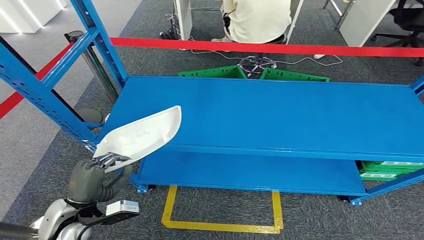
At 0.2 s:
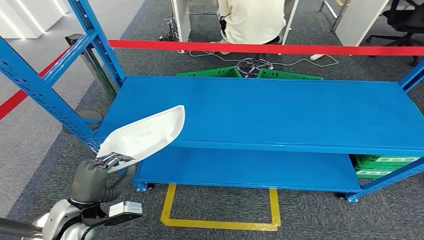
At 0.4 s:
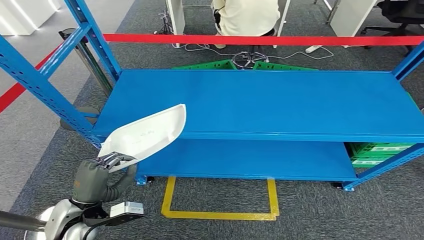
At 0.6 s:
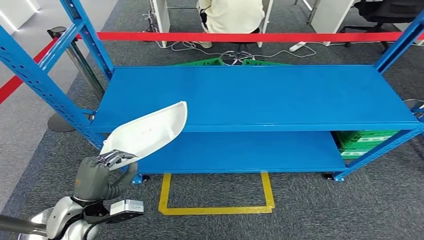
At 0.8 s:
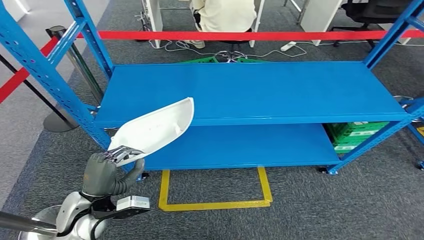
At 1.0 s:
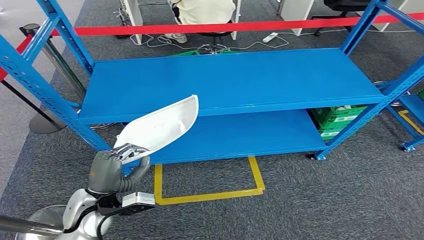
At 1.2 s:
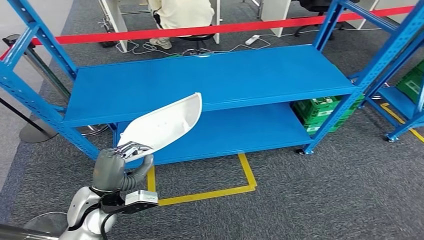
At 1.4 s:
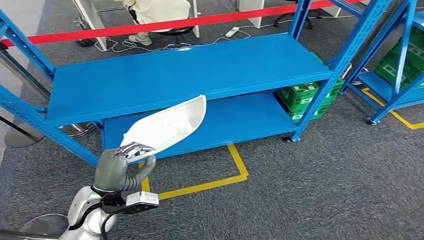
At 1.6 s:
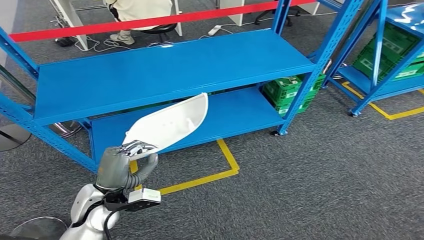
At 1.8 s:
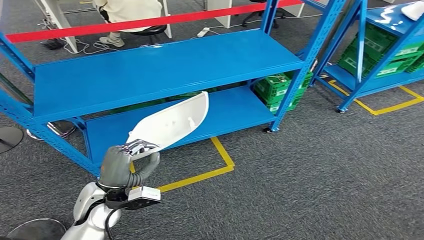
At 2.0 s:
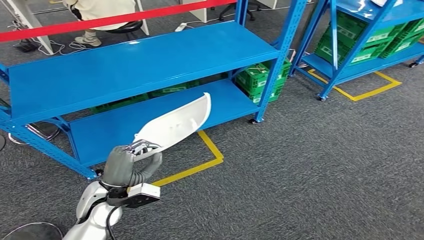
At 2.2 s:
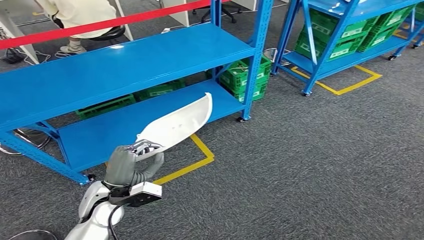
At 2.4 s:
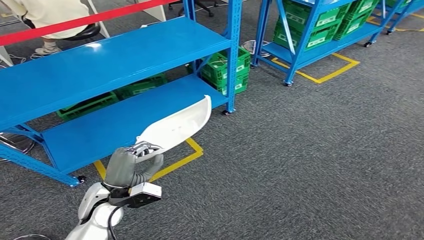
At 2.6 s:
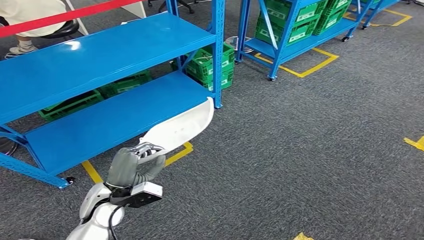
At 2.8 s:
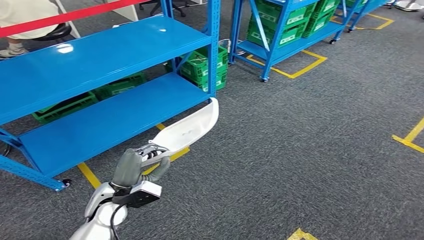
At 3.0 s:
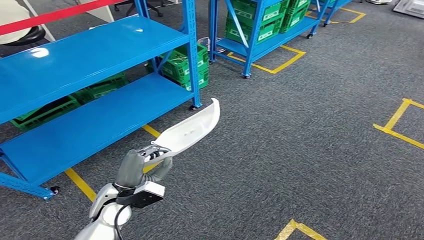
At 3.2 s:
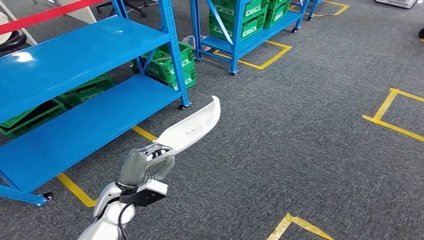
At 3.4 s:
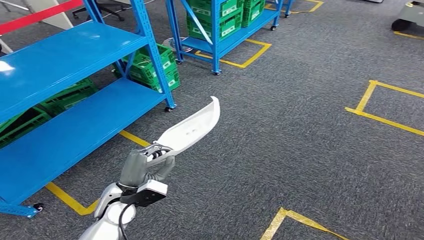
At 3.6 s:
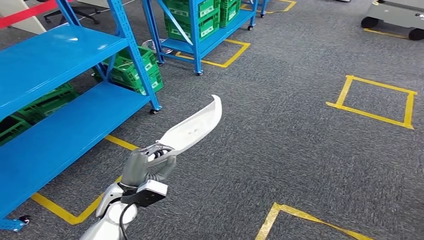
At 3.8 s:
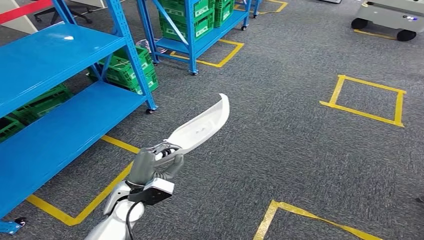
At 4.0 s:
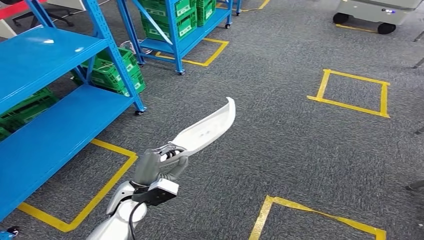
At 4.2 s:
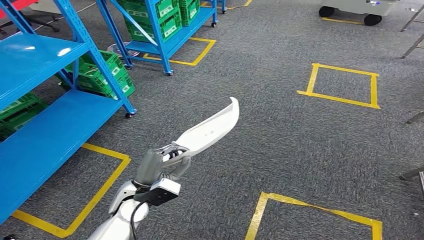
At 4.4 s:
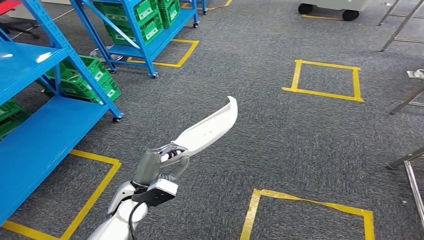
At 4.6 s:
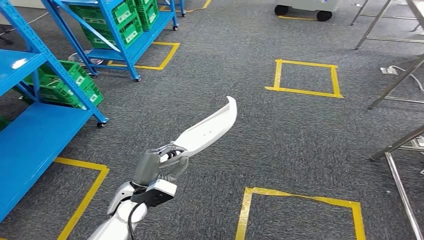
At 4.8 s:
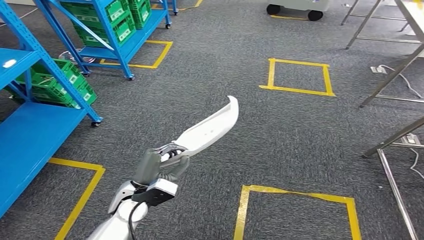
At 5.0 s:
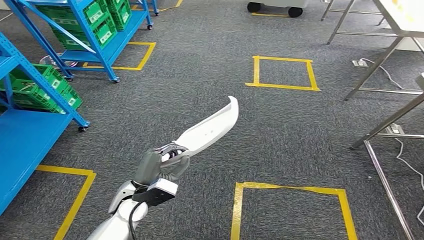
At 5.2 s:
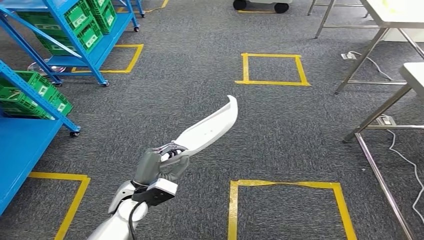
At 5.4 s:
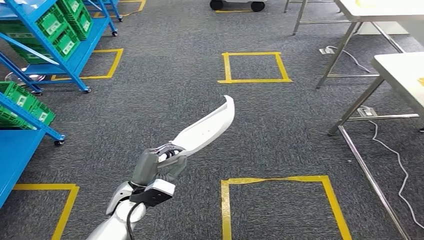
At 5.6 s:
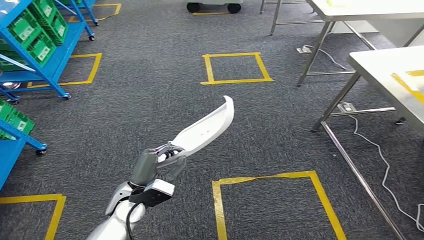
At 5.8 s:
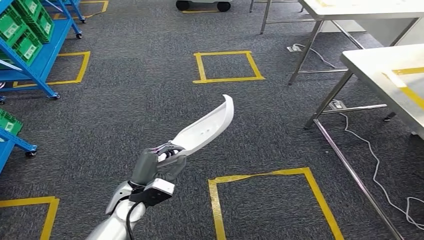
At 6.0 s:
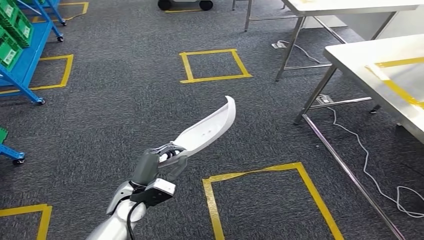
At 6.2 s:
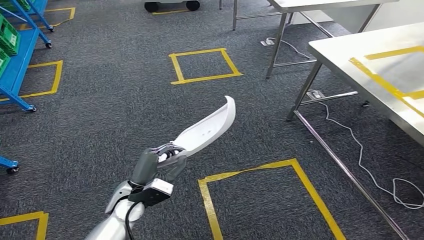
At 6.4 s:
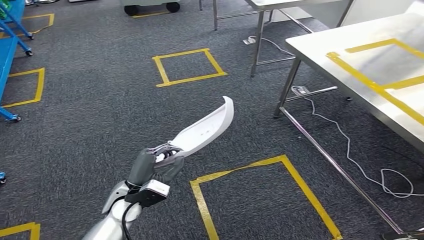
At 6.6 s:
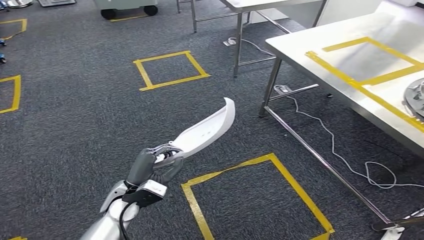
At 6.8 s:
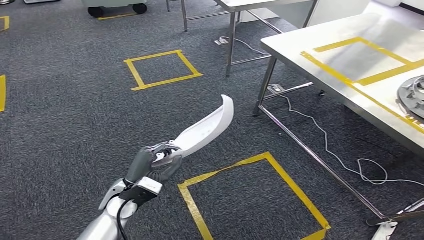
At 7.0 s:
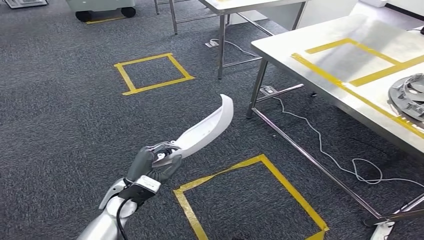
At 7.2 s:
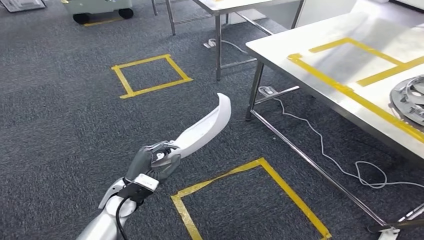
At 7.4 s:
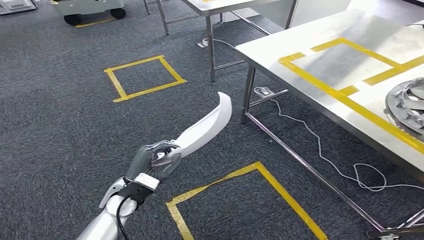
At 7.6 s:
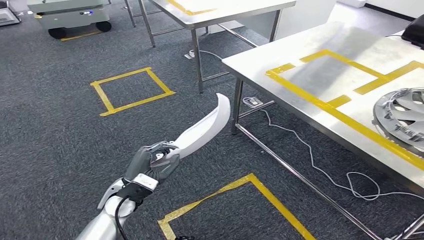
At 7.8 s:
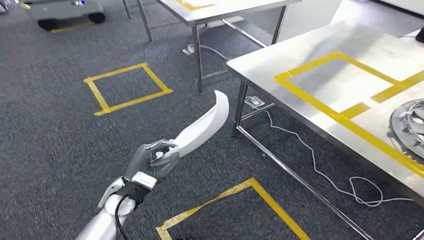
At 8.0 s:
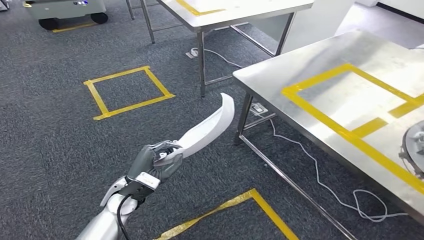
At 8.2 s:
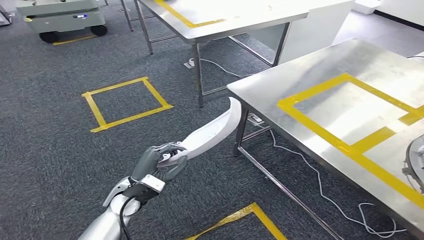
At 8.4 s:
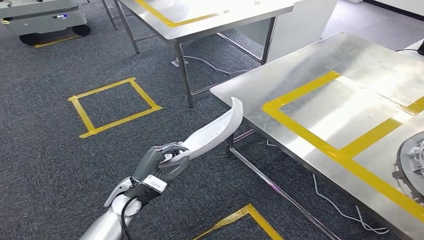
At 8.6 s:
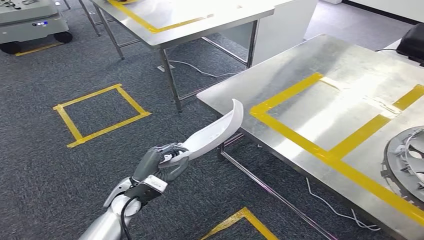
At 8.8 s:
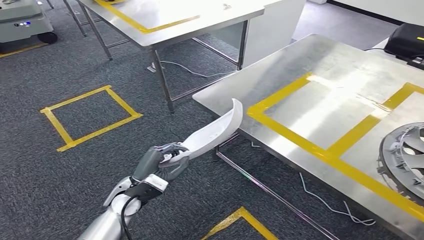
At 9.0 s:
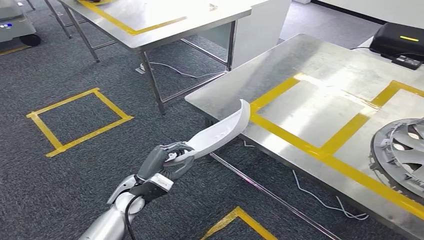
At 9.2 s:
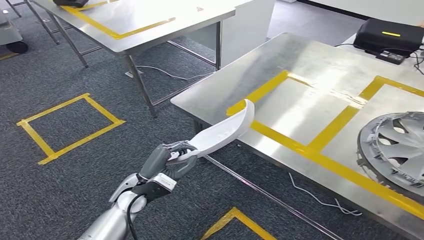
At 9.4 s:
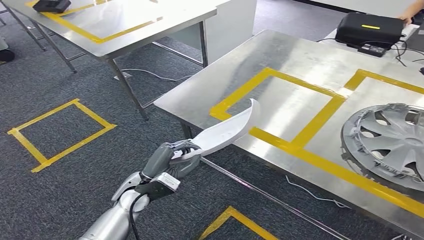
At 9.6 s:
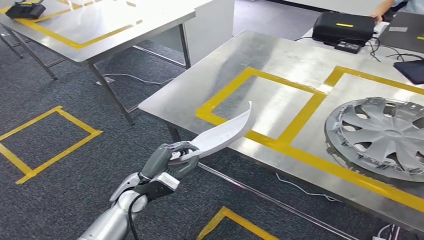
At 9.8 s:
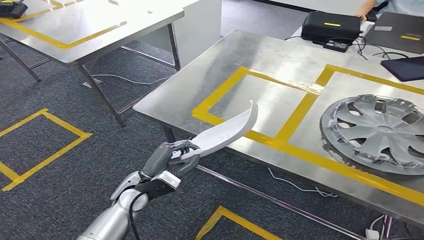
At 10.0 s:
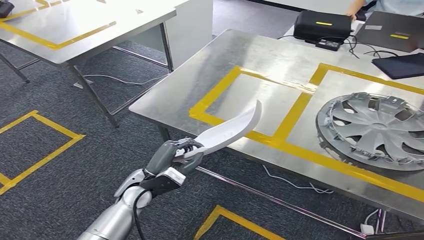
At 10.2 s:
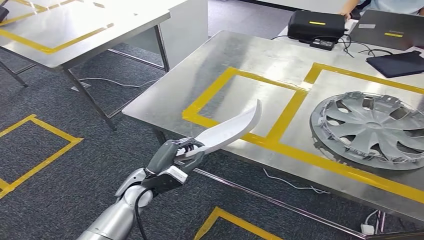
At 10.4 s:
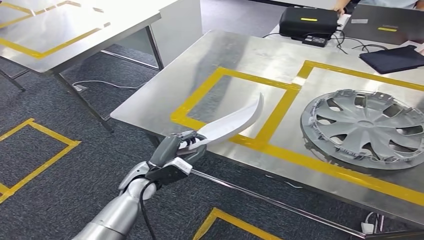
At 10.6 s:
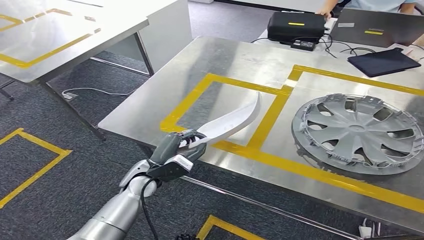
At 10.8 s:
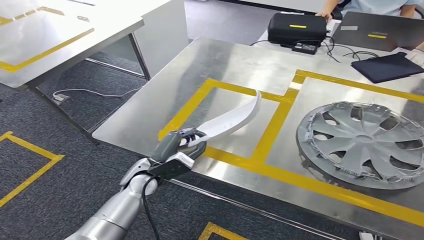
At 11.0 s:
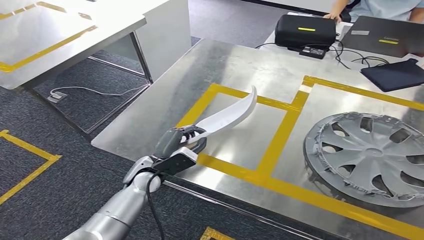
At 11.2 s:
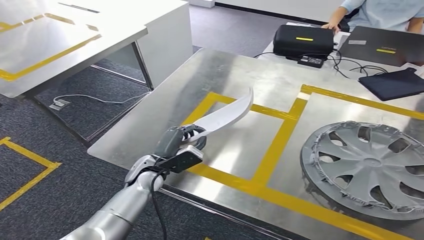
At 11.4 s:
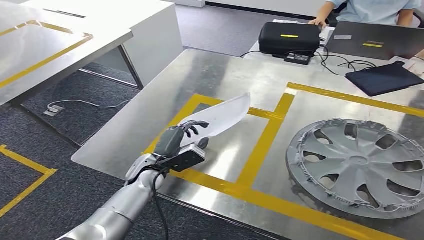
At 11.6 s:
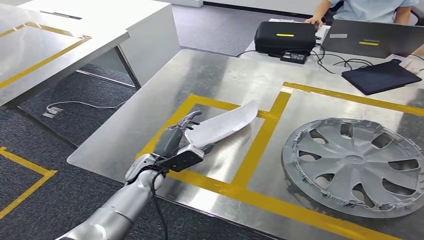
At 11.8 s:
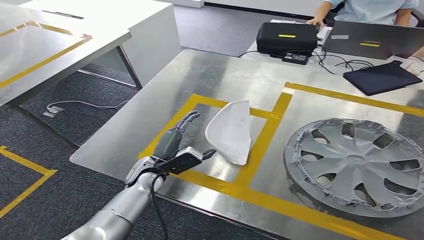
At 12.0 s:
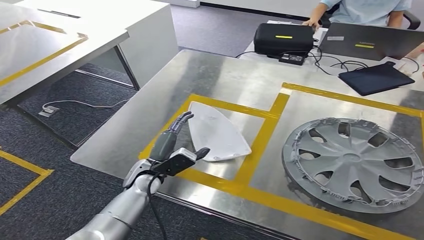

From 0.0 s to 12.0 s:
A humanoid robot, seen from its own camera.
Step, from 0.0 s to 10.6 s: Move the small parts to the workbench.

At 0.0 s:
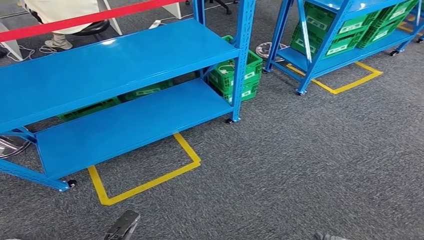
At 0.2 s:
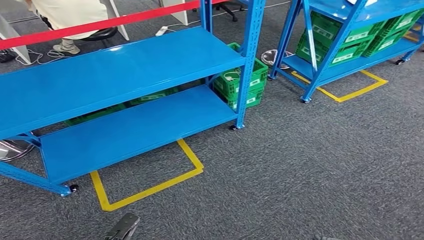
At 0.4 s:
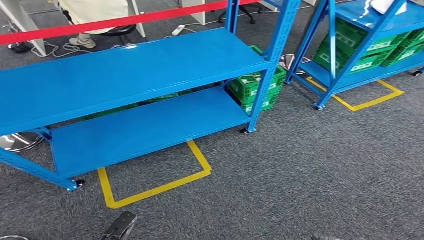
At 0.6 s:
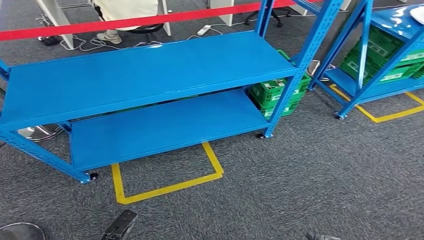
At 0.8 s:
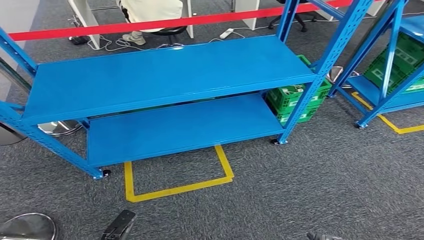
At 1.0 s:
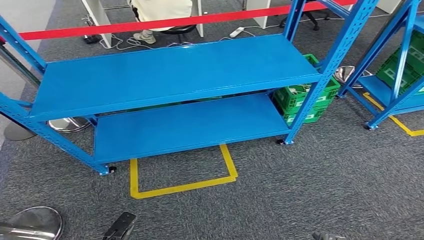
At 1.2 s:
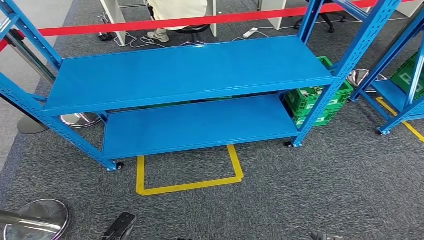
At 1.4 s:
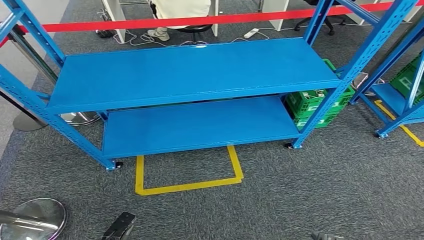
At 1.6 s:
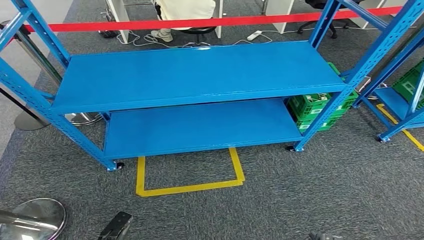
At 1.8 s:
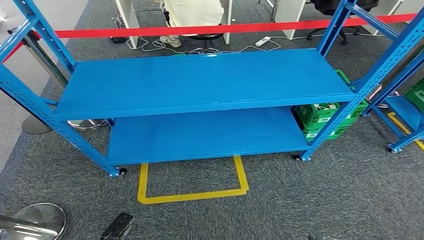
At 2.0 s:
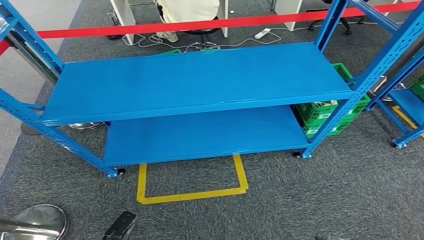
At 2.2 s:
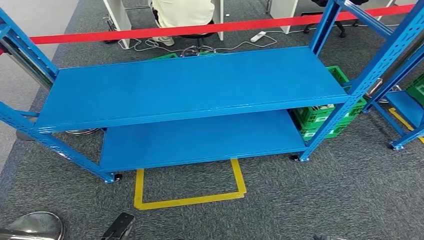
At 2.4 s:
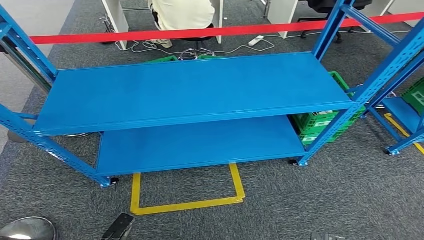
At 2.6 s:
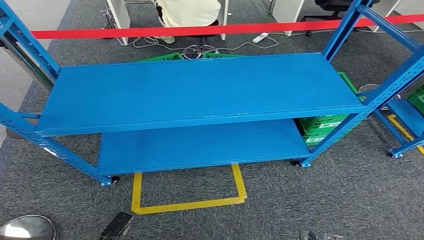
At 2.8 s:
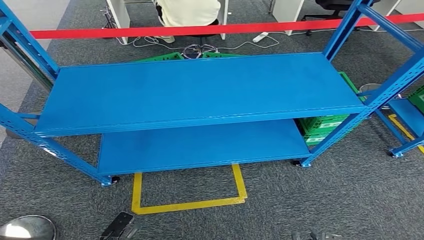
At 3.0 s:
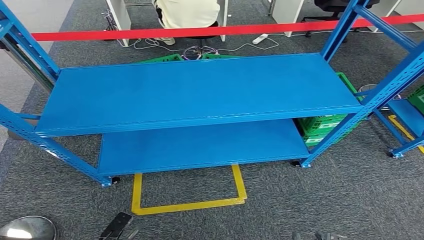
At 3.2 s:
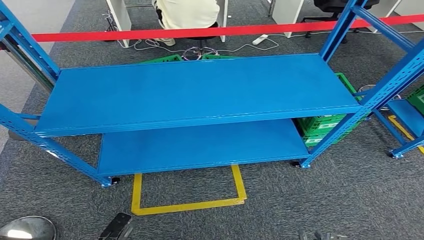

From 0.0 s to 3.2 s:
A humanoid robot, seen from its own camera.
Step, from 0.0 s to 3.2 s: Move to the initial position at the workbench.
